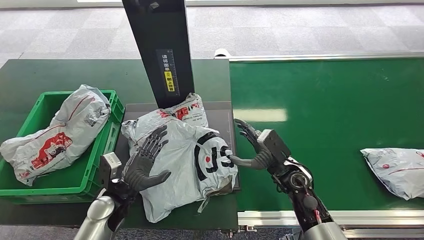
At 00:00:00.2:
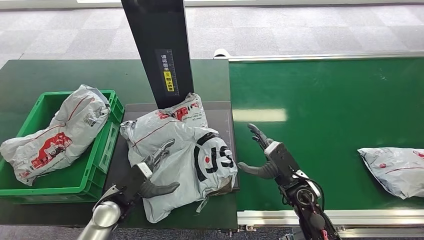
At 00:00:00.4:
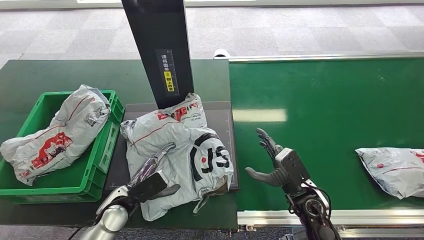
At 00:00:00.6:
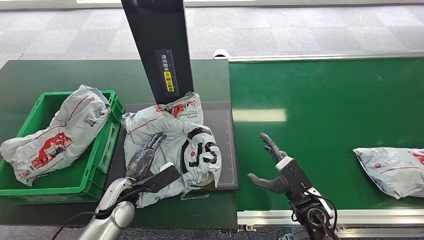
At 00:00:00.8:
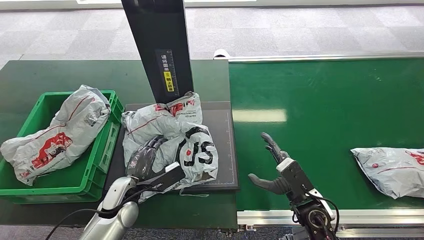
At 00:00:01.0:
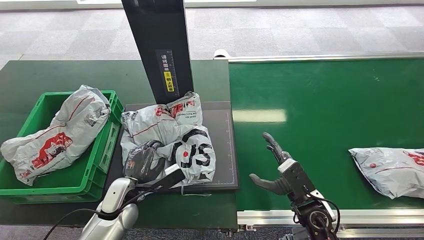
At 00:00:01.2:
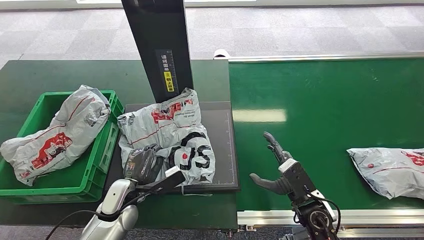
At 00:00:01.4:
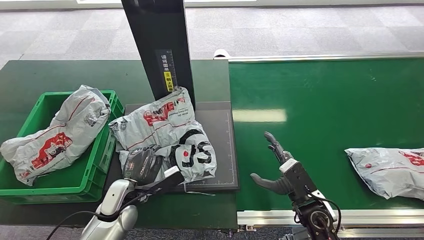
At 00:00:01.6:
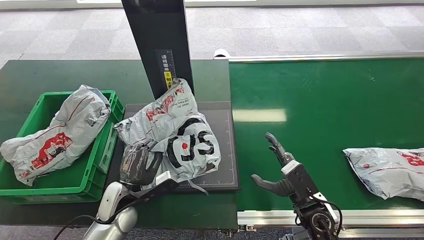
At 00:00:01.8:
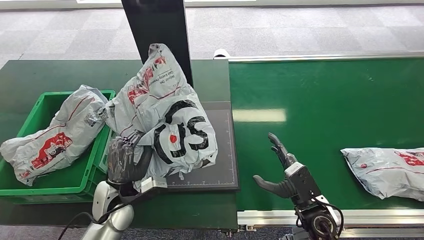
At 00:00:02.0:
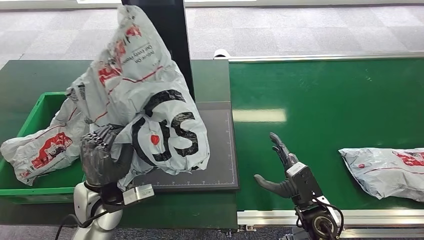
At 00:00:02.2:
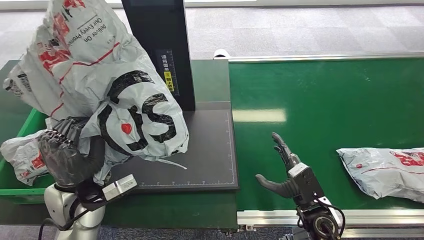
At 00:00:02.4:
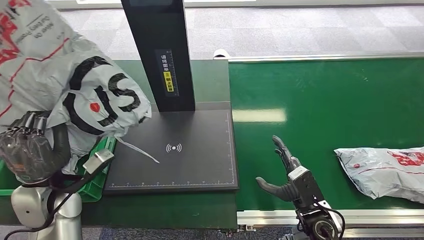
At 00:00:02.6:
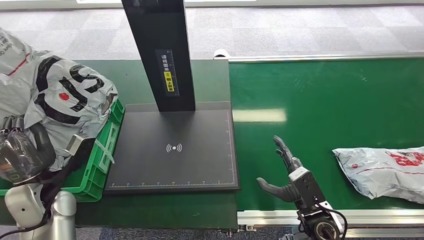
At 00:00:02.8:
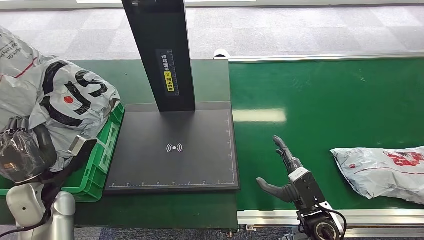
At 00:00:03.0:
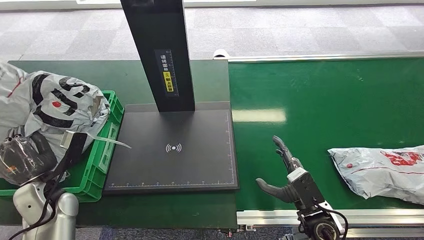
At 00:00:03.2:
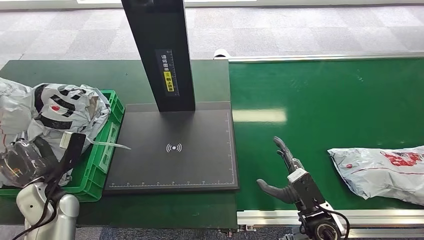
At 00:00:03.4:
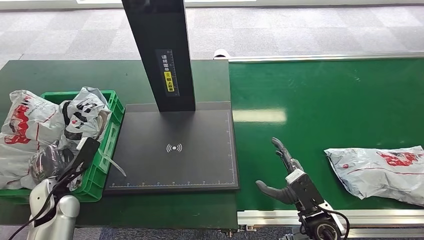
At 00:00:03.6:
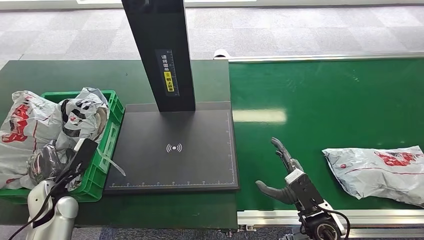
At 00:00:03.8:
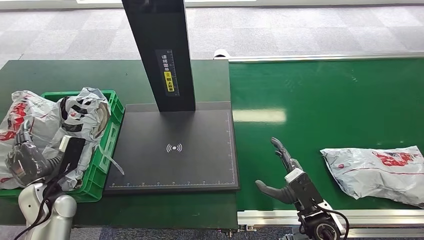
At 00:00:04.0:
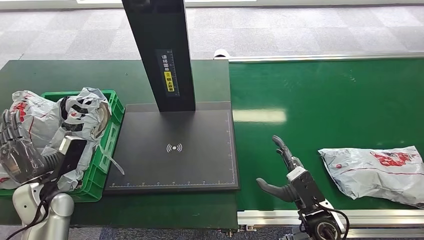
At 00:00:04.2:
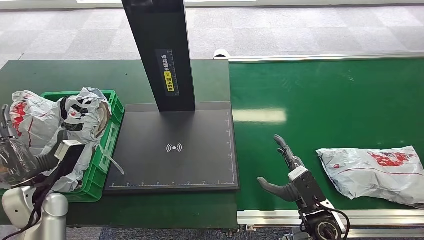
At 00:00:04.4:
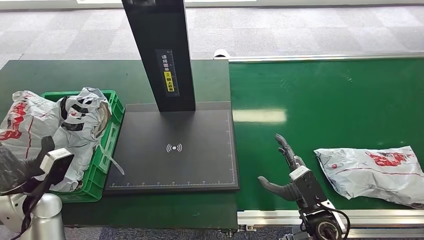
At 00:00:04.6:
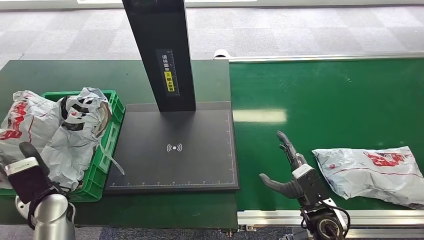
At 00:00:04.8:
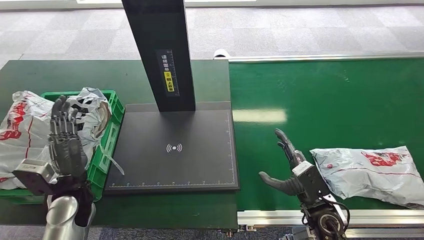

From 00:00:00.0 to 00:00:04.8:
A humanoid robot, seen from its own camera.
Step, from 00:00:00.2 to 00:00:02.4: Pick up the package from the inbound machine.
Step, from 00:00:02.8 to 00:00:04.8: Place the package into the parcel locker.
From 00:00:00.0 to 00:00:01.6: The right hand goes some 10 cm backward.
From 00:00:03.2 to 00:00:04.8: The left hand moves to the right, some 5 cm.
